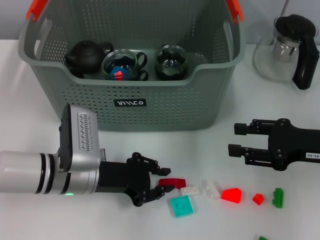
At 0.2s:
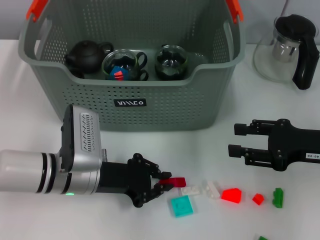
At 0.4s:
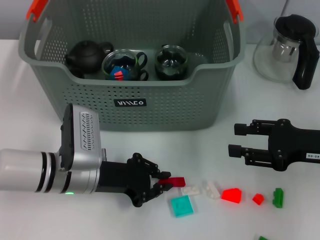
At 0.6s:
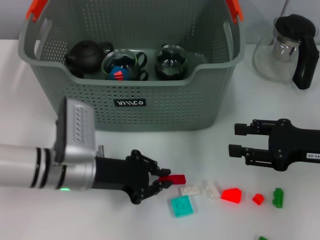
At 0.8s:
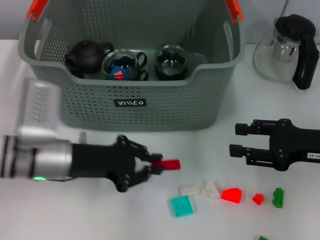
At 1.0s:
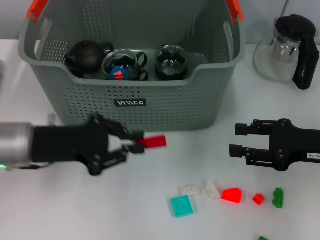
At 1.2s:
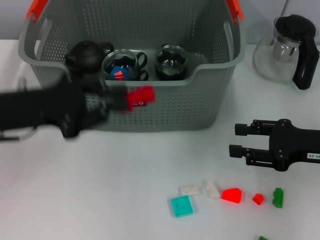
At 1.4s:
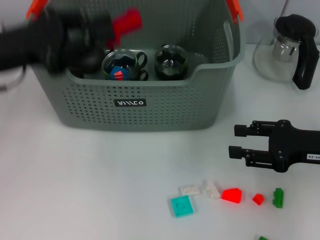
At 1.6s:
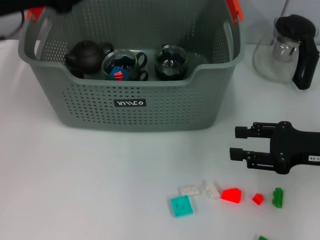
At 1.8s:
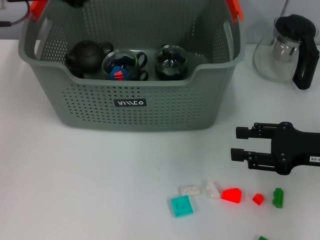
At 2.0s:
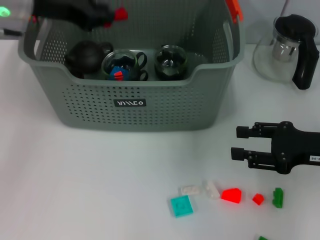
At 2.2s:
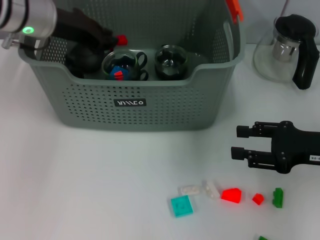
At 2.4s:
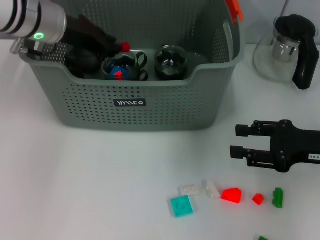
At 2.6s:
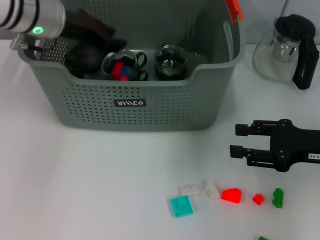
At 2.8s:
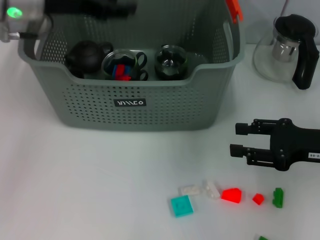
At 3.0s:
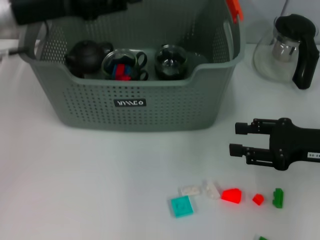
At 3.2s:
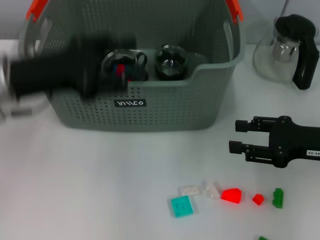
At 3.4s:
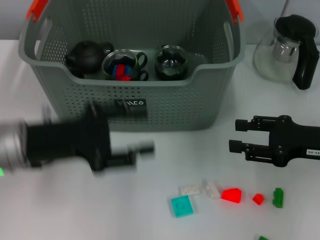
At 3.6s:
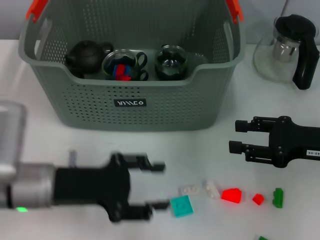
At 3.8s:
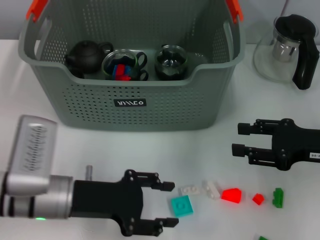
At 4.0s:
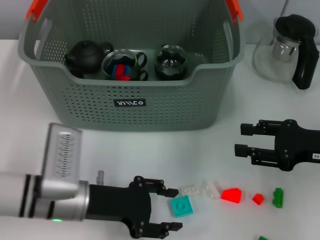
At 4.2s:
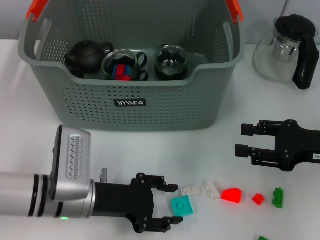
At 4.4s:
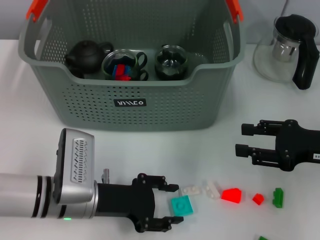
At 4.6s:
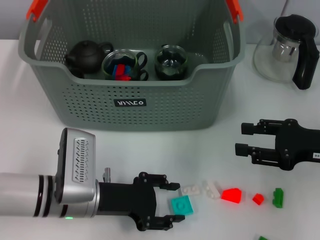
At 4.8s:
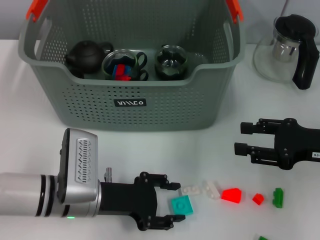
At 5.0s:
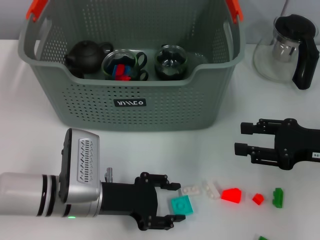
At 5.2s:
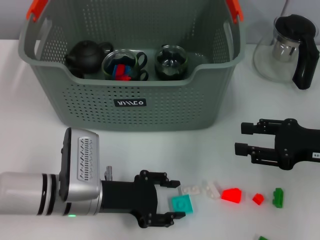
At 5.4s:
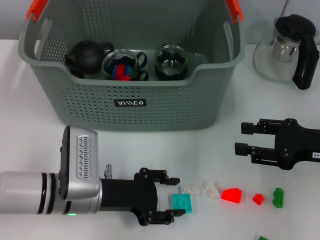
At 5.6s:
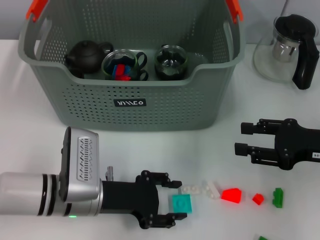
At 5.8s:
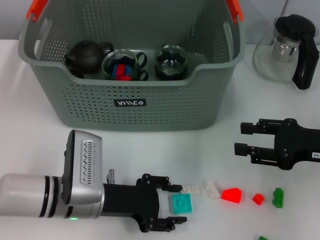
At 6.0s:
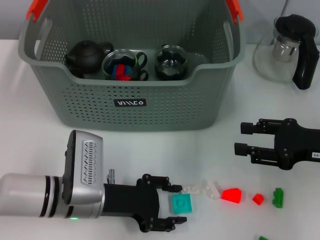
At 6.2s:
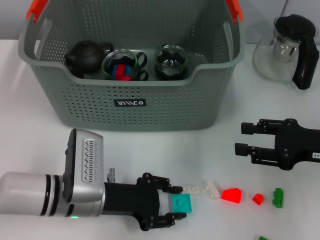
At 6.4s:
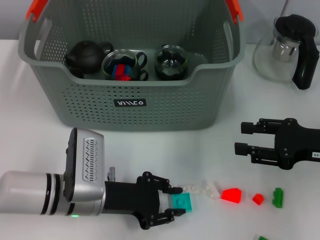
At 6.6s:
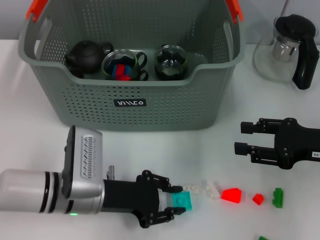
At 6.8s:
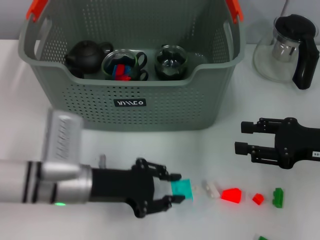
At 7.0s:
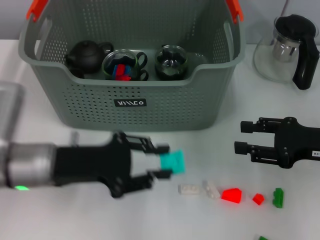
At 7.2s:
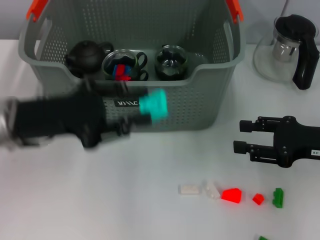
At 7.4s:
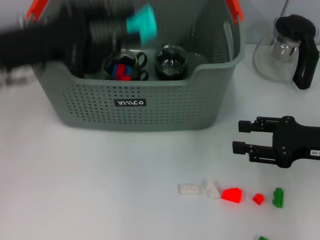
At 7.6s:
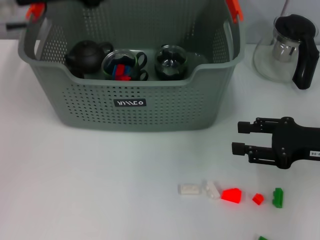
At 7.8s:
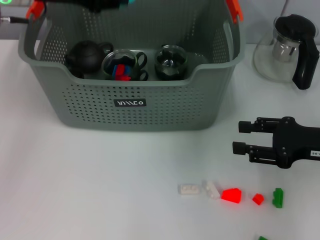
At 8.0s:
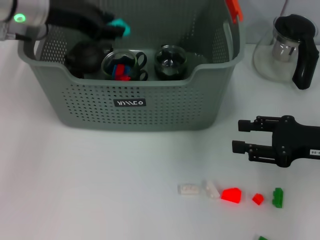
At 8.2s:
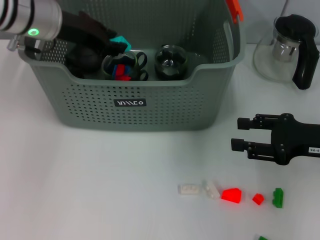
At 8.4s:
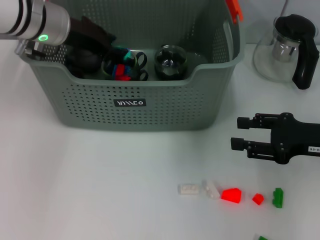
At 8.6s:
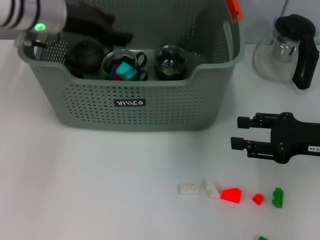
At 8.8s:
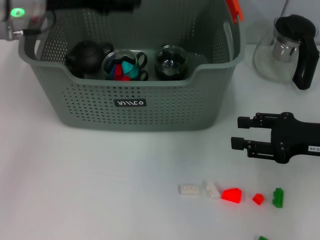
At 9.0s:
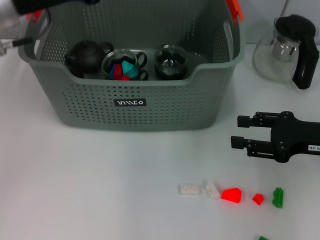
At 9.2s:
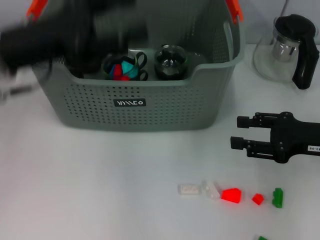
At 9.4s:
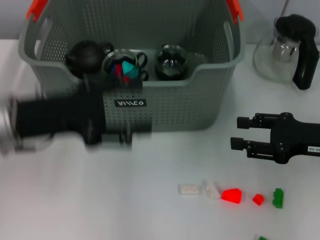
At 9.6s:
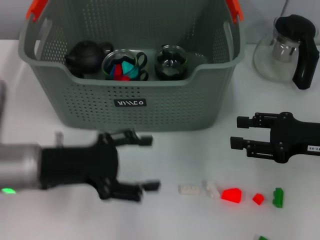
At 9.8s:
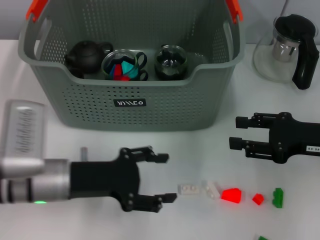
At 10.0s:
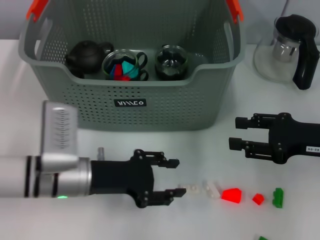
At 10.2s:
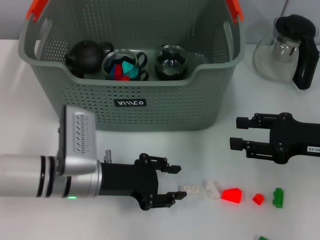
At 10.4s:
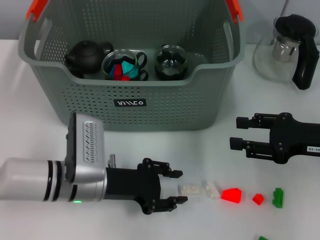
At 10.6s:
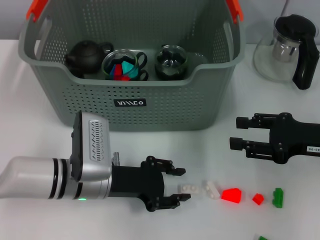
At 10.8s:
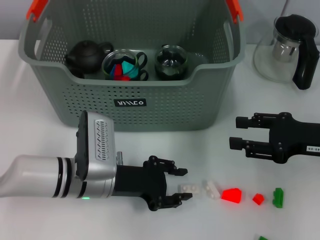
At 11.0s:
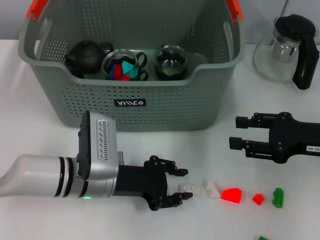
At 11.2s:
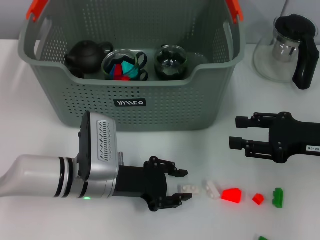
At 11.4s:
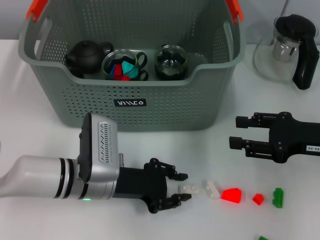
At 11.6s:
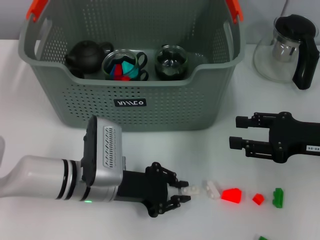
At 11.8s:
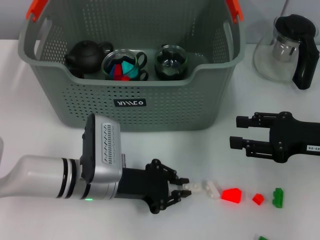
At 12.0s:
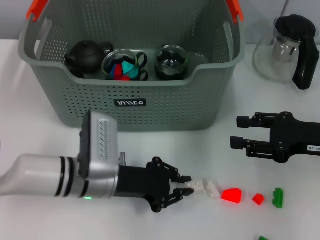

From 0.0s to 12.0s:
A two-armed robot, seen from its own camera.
Task of the whole recording: pick up the teacup on the table and place it into the storage bin, pick up the block on the table and place it into the storage bin.
Step, from 0.6s to 2.8s: Place the red block in the storage box with left gripper.
Step, from 3.0s to 6.4s: Grasp the light blue block with left gripper.
Step, from 6.8s to 8.6s: Place the light blue block in the storage box with left gripper.
From 0.0s to 1.6s: The left gripper moves upward and to the left, about 25 cm.
From 1.6s to 3.0s: The left gripper opens.
From 3.0s to 4.4s: The left gripper heads downward and backward, covering approximately 25 cm.
From 4.4s to 6.0s: Both grippers stay put.
From 6.0s to 7.6s: The left gripper shifts roughly 25 cm upward and forward.
From 7.6s to 9.0s: The left gripper opens.
From 9.0s to 10.4s: The left gripper travels downward and backward by roughly 20 cm.
From 10.4s to 12.0s: The left gripper closes up.

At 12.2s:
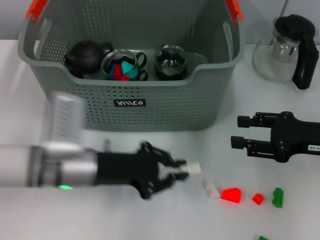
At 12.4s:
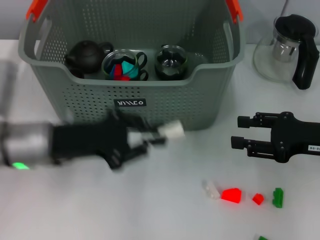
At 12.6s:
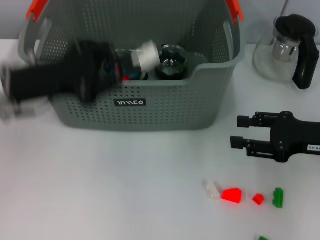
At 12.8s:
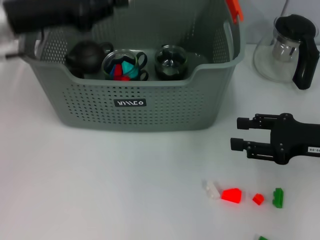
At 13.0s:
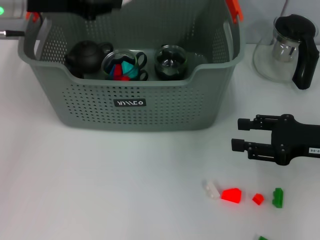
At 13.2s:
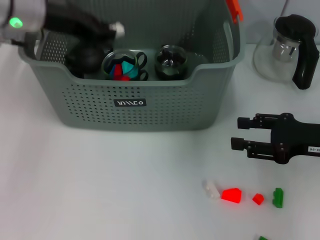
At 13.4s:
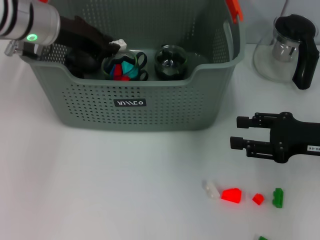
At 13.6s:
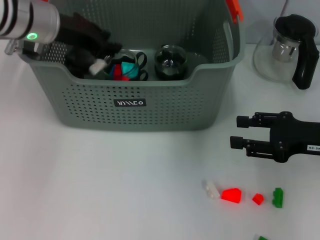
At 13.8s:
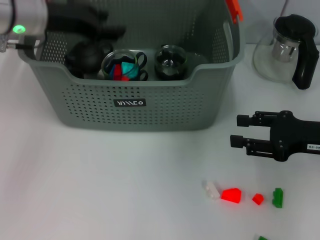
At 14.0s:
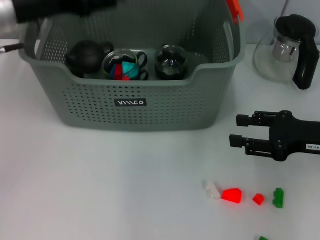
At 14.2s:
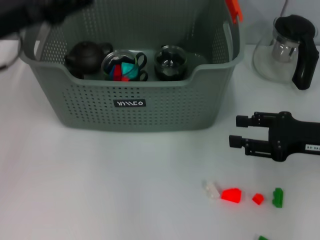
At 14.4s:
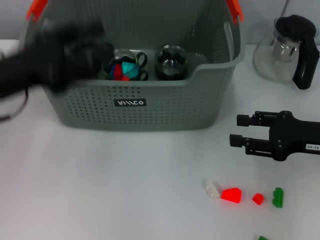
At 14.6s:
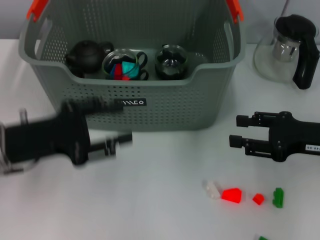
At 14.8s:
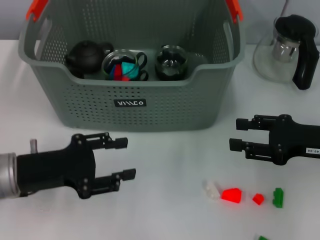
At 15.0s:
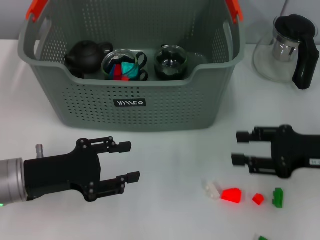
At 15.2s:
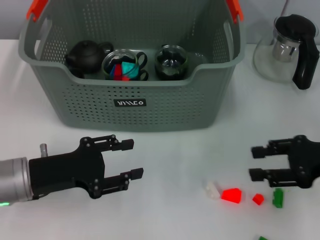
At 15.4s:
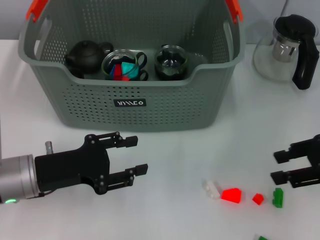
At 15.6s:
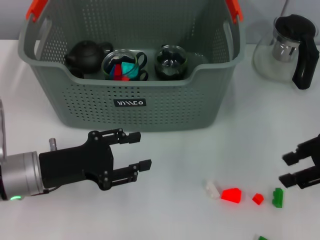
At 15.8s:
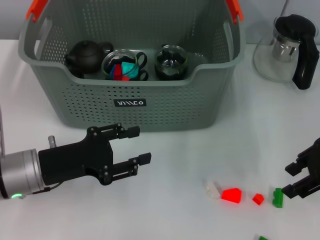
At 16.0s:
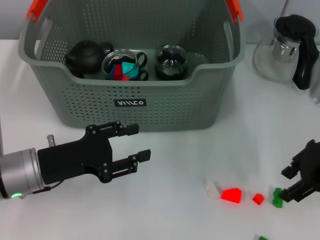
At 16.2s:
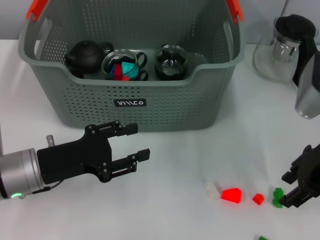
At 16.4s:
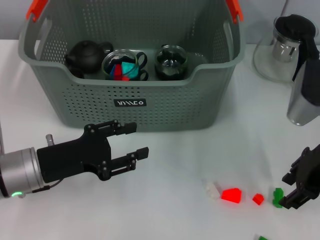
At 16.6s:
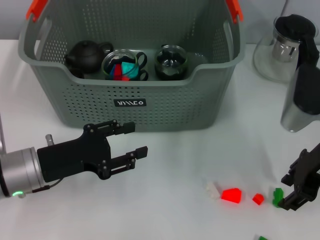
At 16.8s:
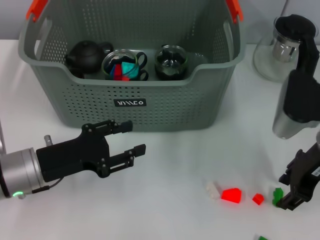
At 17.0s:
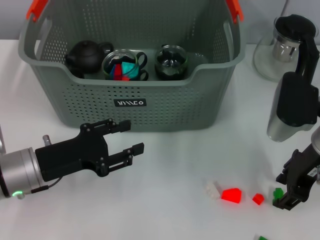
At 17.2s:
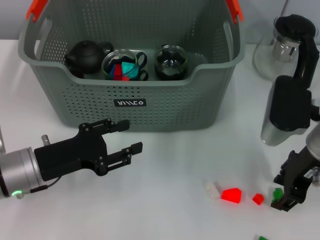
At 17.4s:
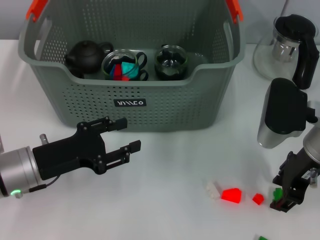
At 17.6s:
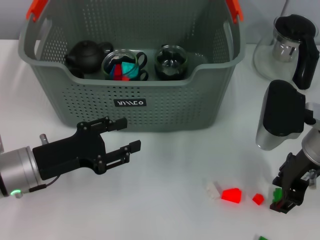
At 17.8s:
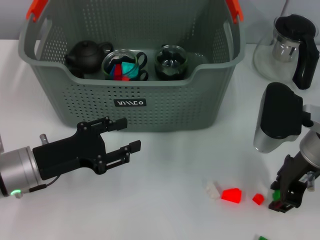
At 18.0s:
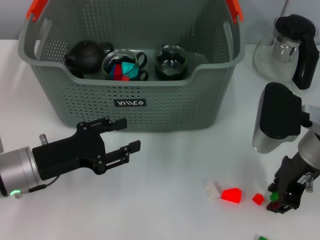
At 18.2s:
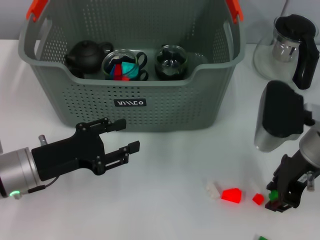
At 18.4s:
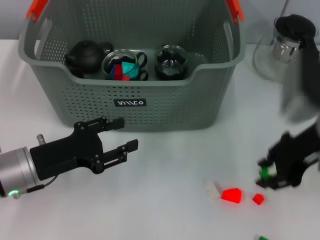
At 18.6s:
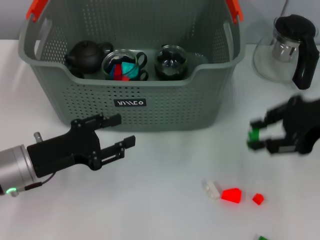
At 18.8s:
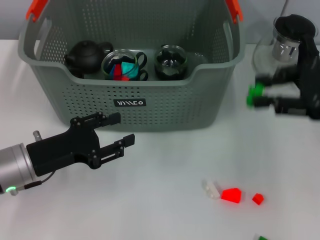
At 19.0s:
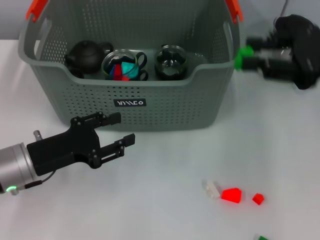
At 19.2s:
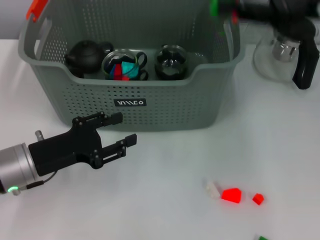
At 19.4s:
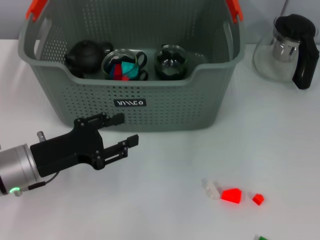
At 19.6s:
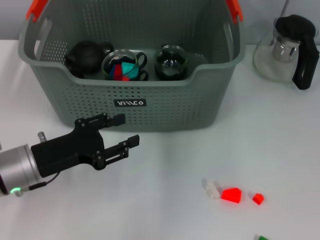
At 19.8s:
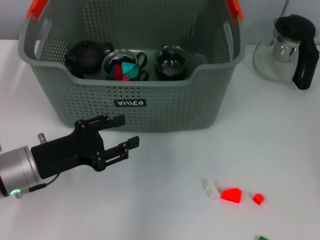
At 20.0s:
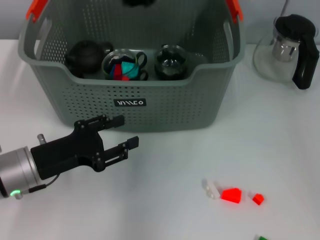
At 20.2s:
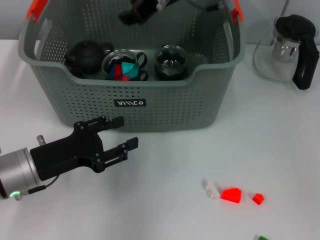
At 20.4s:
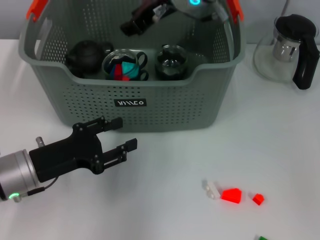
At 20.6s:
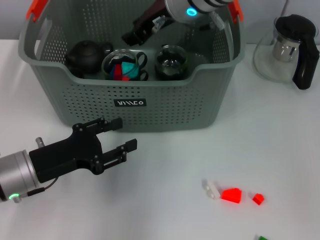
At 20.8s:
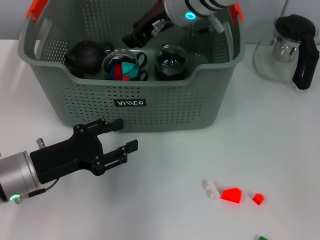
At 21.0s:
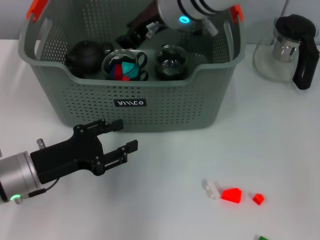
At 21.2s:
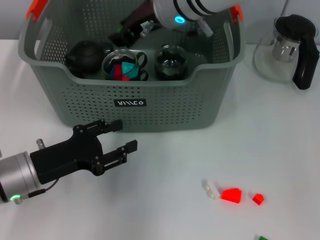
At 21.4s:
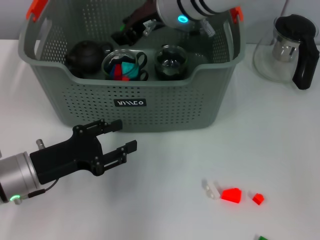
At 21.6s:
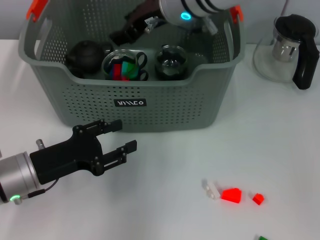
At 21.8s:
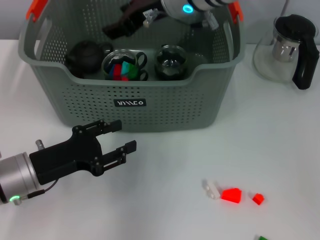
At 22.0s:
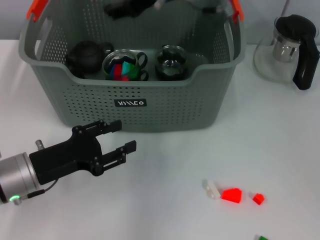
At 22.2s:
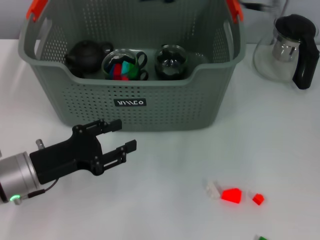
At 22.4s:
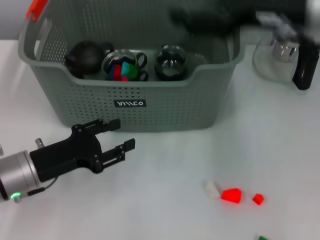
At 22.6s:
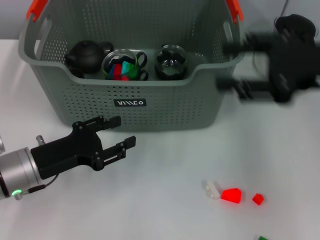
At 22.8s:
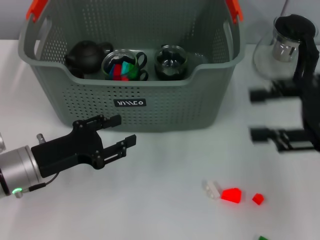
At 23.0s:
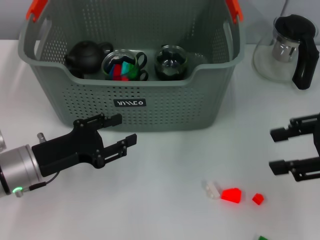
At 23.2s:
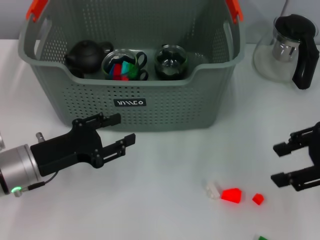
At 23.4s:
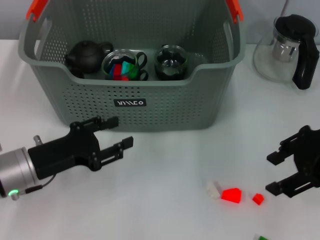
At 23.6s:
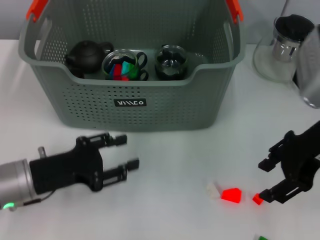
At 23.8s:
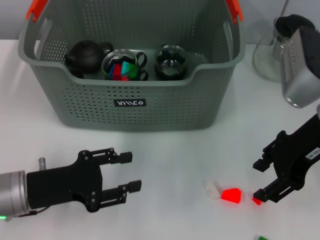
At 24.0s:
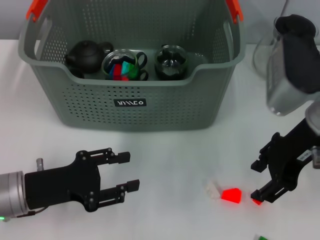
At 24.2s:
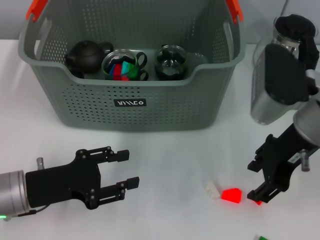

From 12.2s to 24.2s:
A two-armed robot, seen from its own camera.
Task of the whole recording: pick up the teacup on the table and place it into the storage bin, pick up the block on the table and place it into the storage bin.
Step, from 14.2s to 18.0s: Grasp the green block with right gripper.
Step, from 18.4s to 22.0s: Place the green block in the storage box with right gripper.
From 12.2s to 13.8s: The left gripper is displaced upward and forward by approximately 20 cm.
From 13.8s to 15.2s: The left gripper moves backward and downward, roughly 20 cm.
From 15.2s to 16.6s: The right gripper is displaced to the left by approximately 5 cm.
From 16.6s to 18.2s: The grippers stay close to where they were, moving slightly.
From 18.2s to 19.8s: The right gripper shifts some 20 cm upward, forward and to the left.
From 19.8s to 21.2s: The right gripper moves to the left and downward, some 10 cm.
From 21.2s to 22.6s: The right gripper heads to the right and backward, covering roughly 25 cm.
From 22.6s to 24.2s: The right gripper goes approximately 5 cm to the left.
